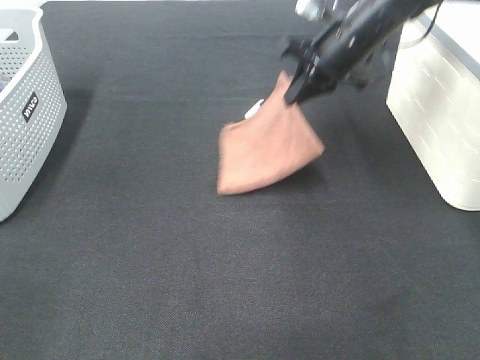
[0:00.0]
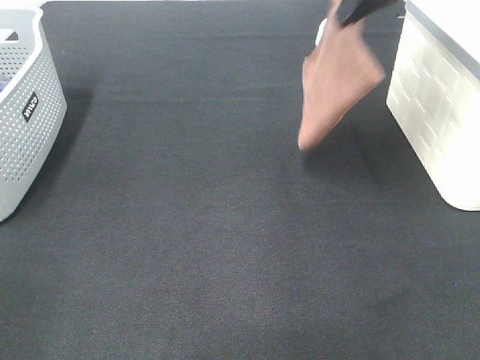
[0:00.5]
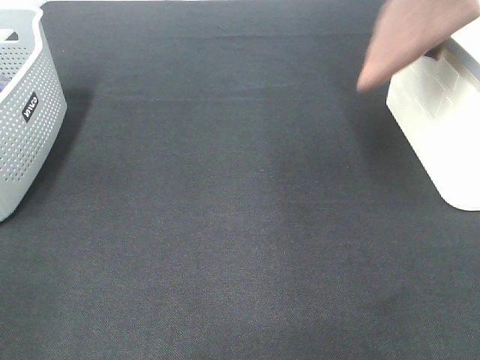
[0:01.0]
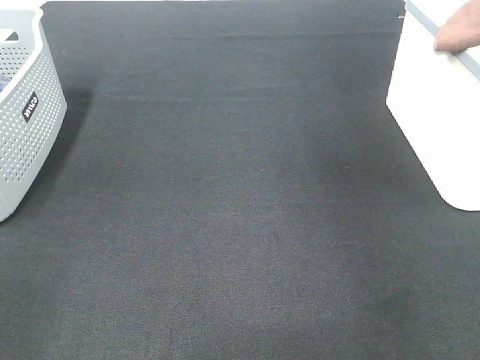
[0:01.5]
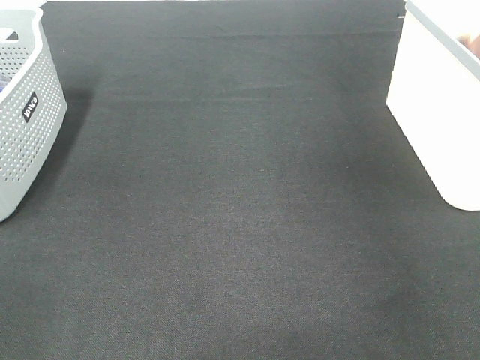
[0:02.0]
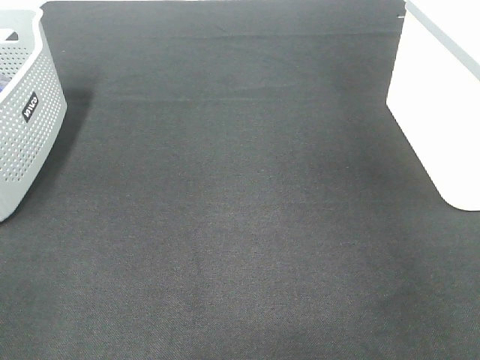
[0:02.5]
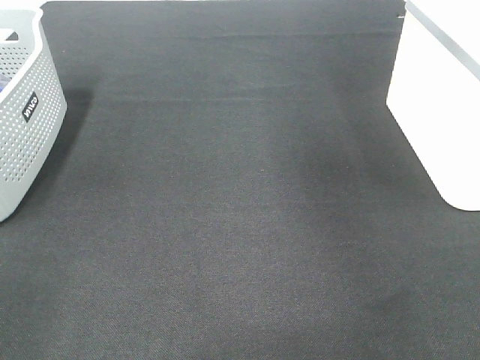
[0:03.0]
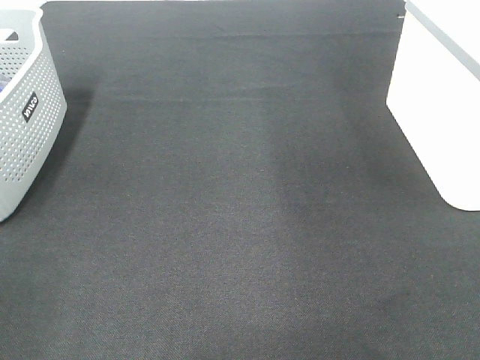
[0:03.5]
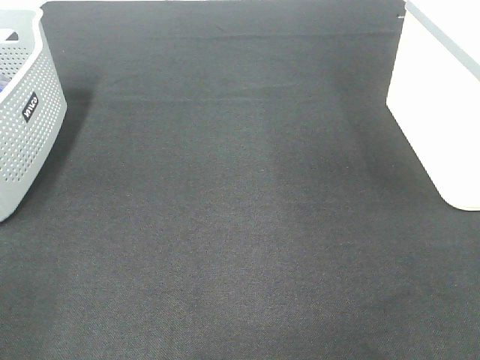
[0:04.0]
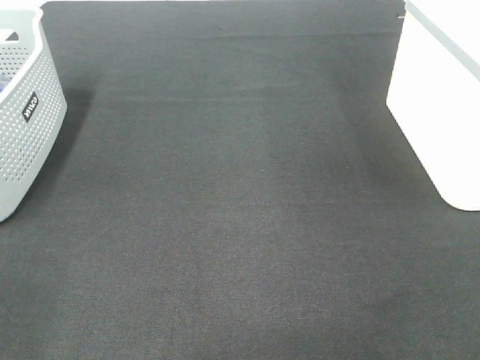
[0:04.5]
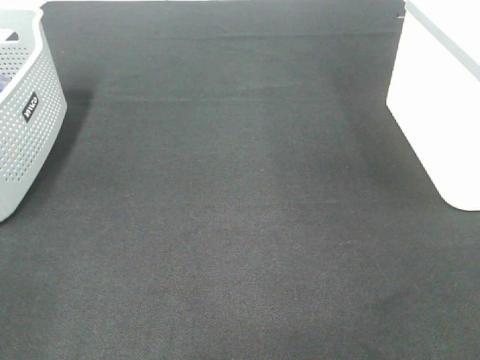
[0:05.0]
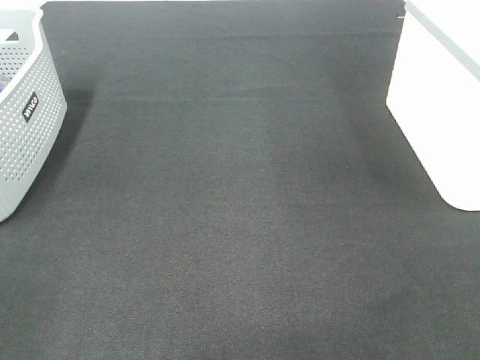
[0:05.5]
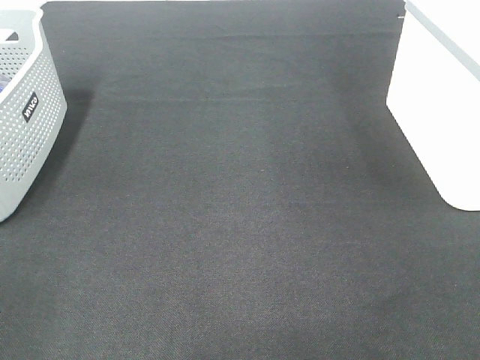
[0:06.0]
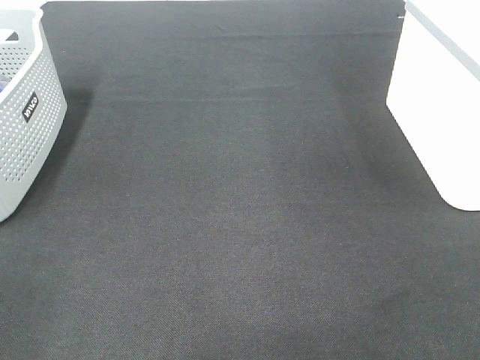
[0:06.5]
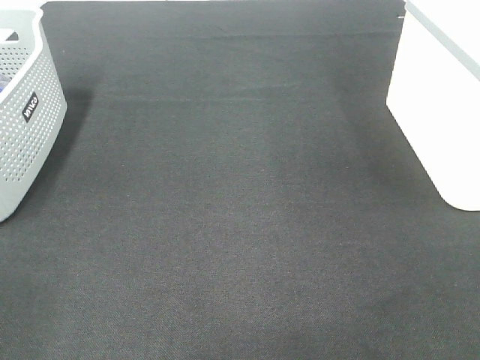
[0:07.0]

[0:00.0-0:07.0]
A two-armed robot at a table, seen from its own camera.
Step, 0:00.0 to 0:02.5: Right hand: place the brown towel in right basket.
0:00.0 to 0:02.0: The right gripper shifts about 30 cm to the right and upward.

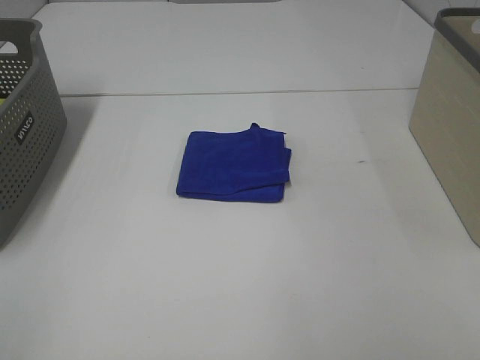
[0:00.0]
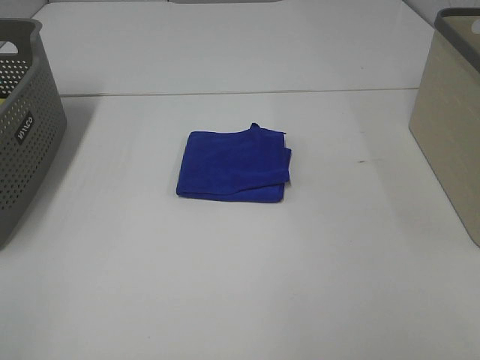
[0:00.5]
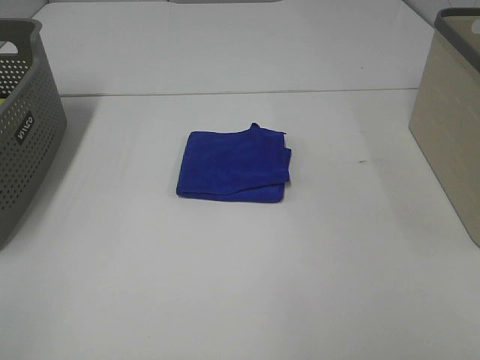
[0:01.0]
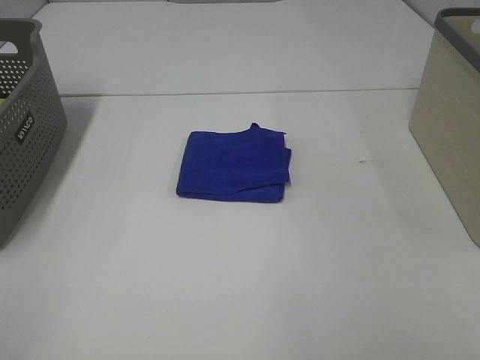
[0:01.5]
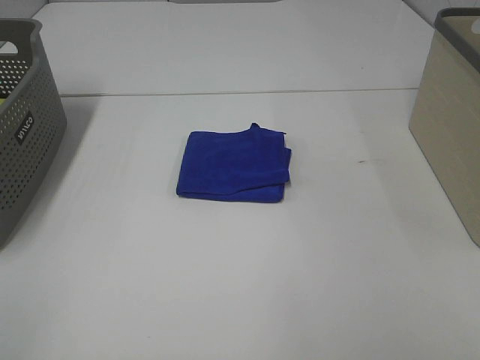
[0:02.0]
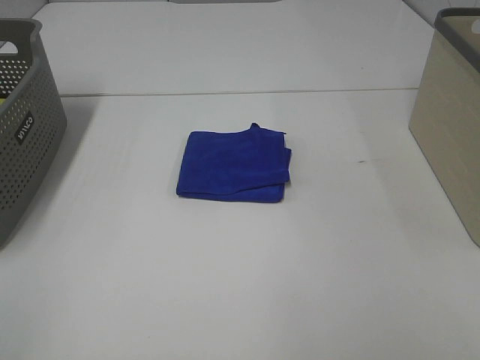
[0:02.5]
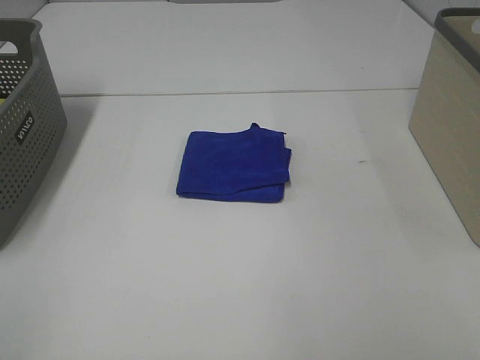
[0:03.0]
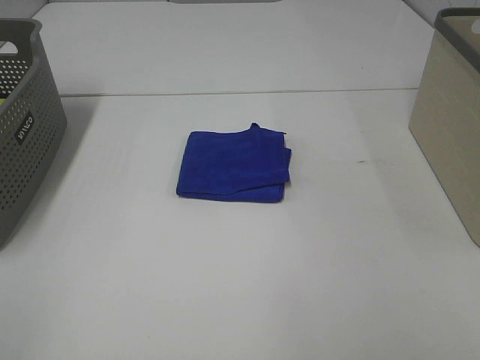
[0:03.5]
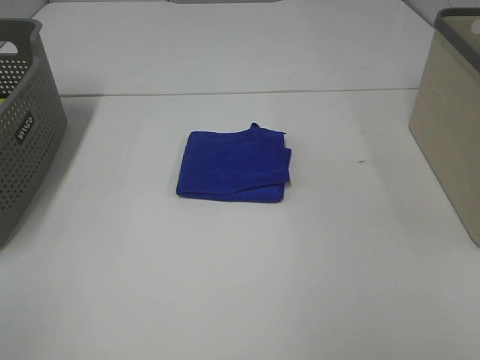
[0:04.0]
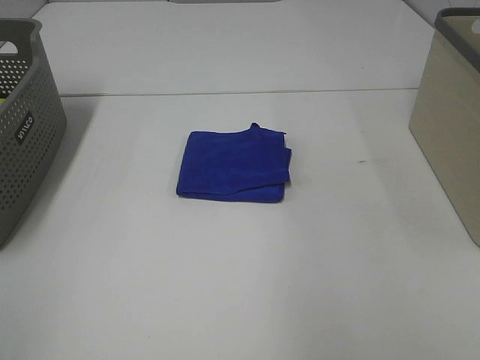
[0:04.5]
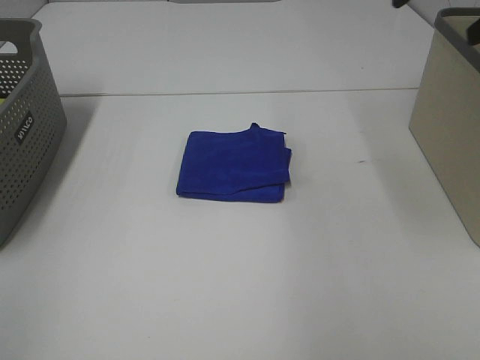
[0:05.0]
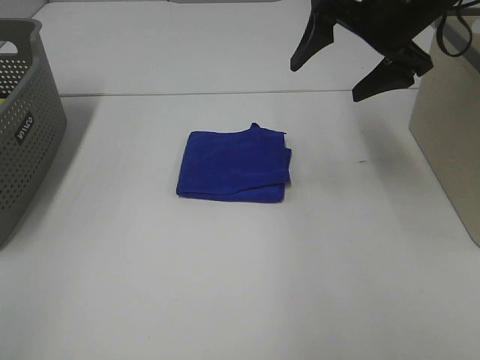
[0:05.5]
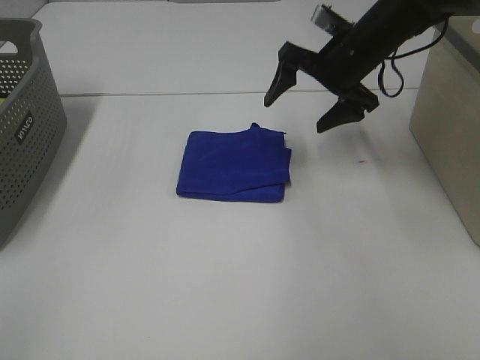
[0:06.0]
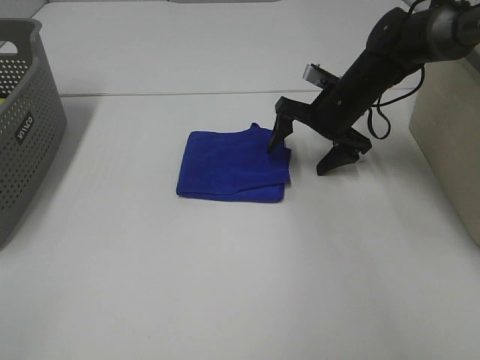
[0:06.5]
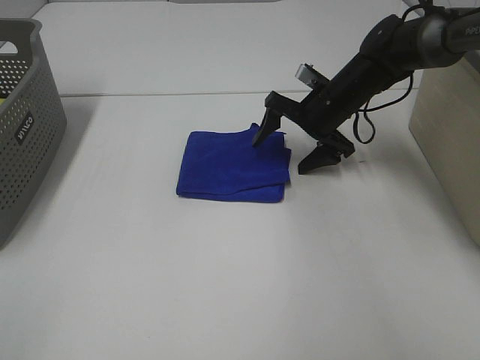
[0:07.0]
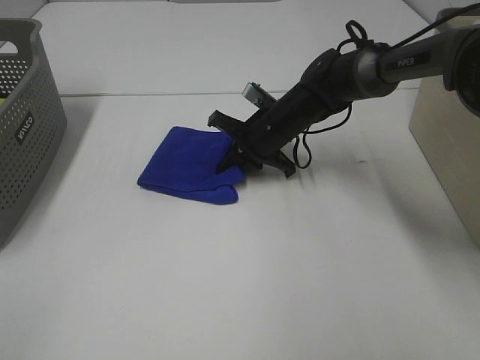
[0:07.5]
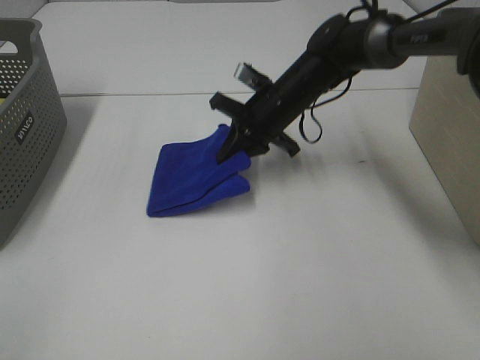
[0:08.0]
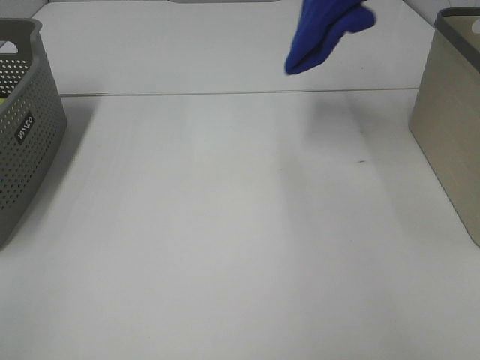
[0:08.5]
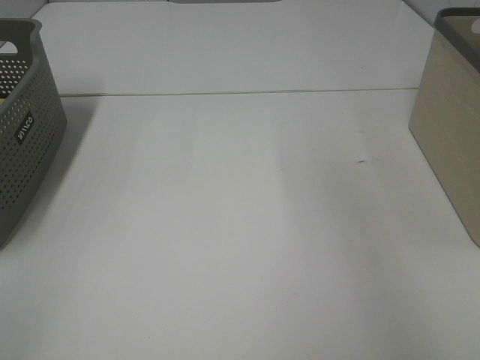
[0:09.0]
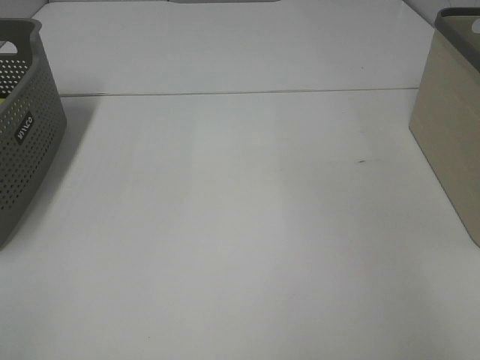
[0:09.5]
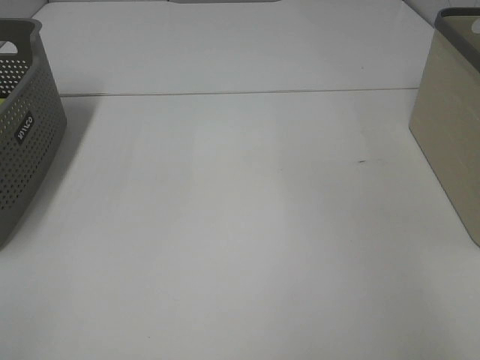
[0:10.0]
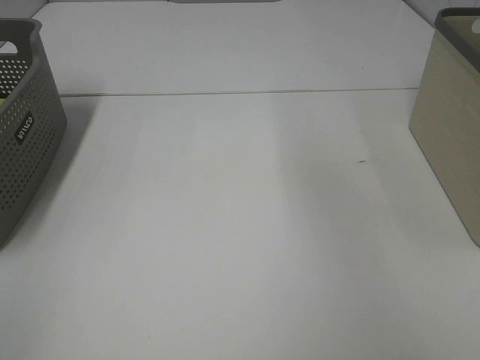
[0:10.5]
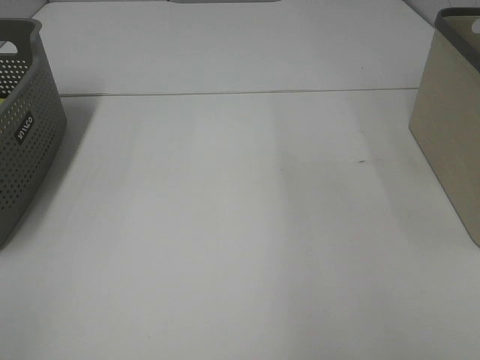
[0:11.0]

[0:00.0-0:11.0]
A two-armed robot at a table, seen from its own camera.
Step, 0:00.0 to 0:07.5: Right hand: grab the folded blue towel.
Step, 0:08.0 to 0:10.0: Right hand: place the blue towel in right basket.
0:00.0 to 0:03.5: Neither gripper changes place.
0:03.5 to 0:05.5: The right gripper heads forward, covering about 40 cm.
0:05.5 to 0:07.5: The right gripper shifts roughly 25 cm downward and to the left, and closes its fingers.
0:07.5 to 0:09.0: The right gripper moves upward and to the right, approximately 50 cm.

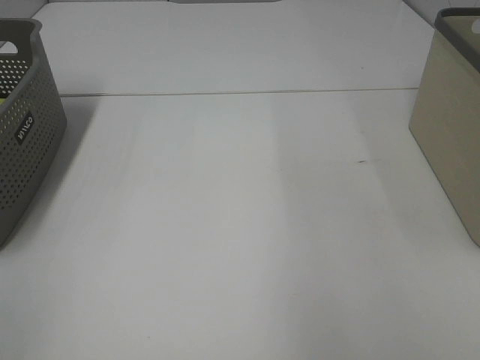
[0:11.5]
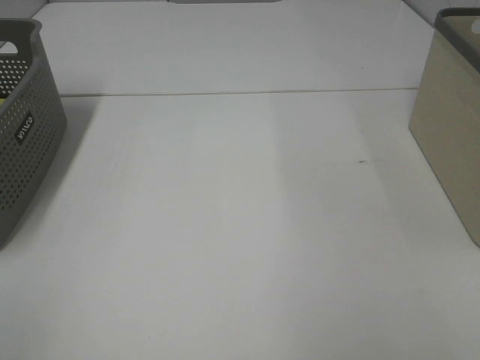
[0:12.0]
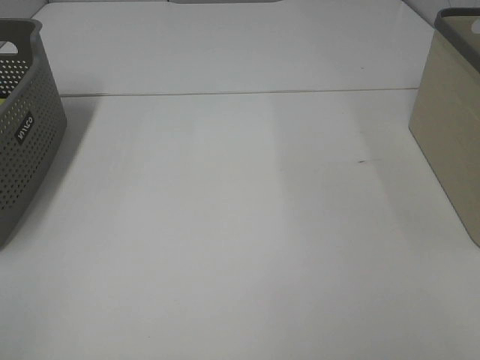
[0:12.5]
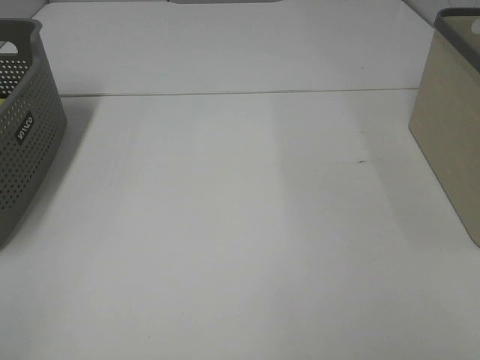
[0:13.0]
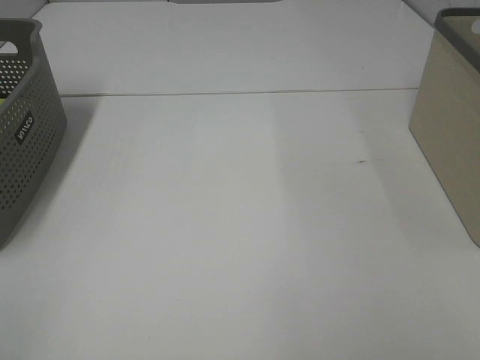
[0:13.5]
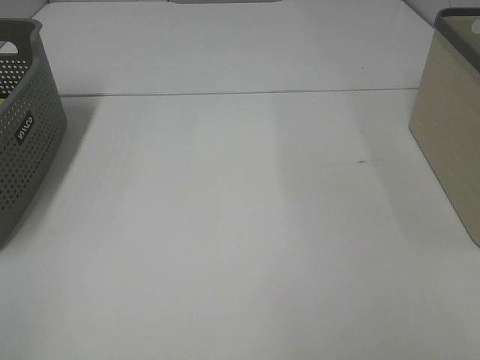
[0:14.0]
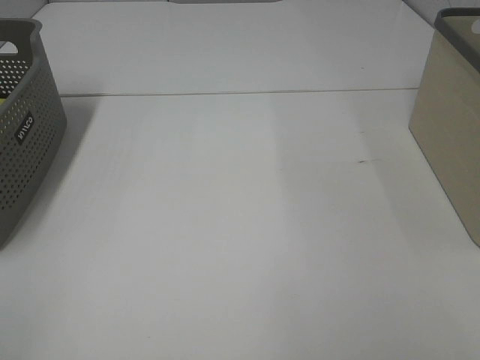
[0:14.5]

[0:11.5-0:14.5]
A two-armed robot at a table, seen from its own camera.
0:13.0 to 0:14.5: Both grippers stay put.
